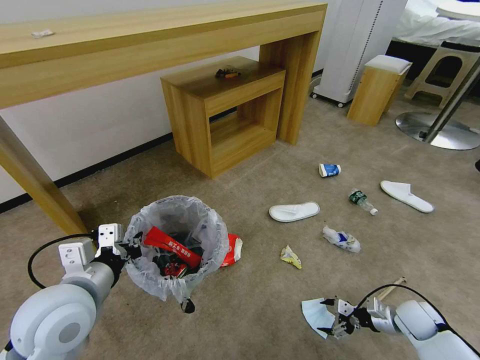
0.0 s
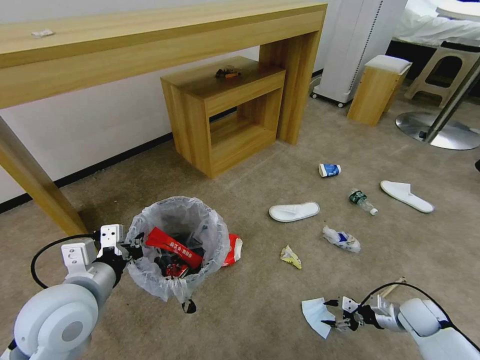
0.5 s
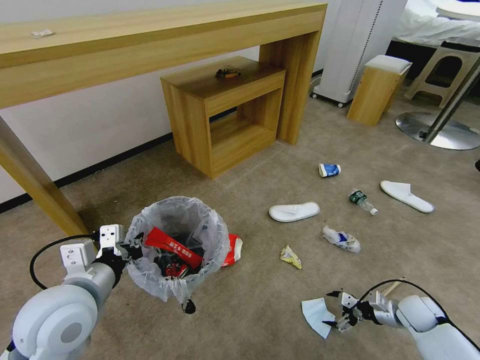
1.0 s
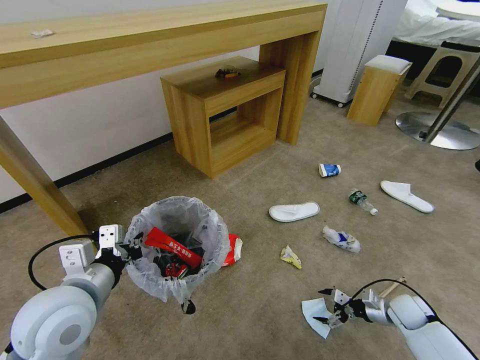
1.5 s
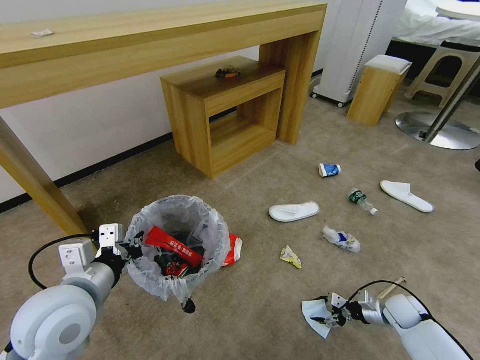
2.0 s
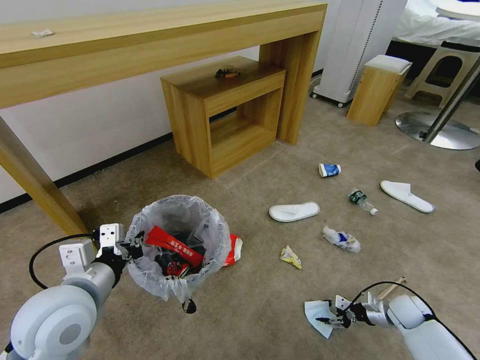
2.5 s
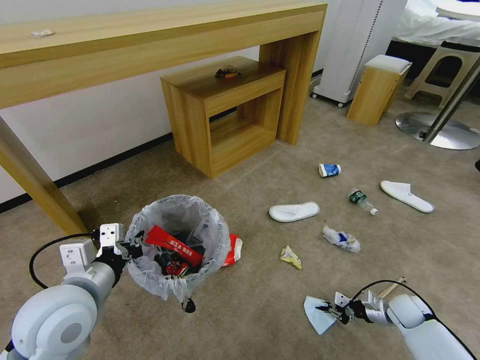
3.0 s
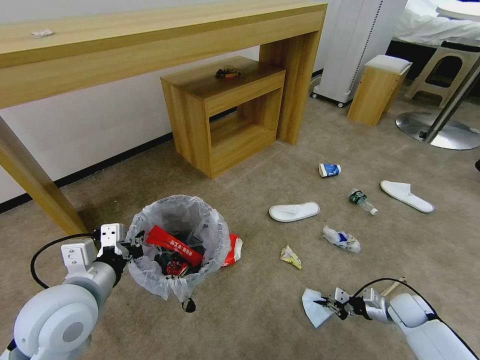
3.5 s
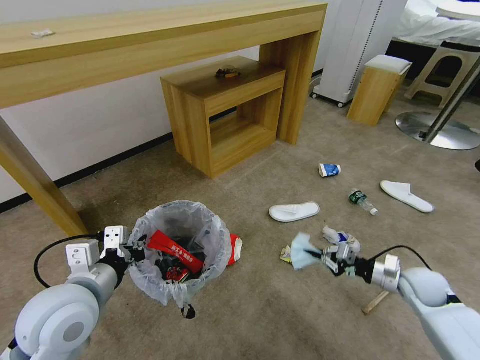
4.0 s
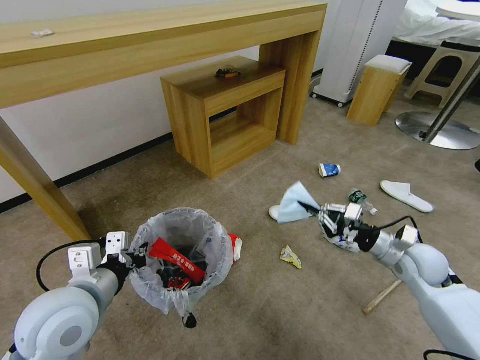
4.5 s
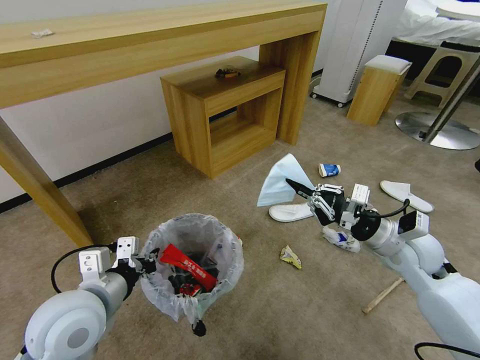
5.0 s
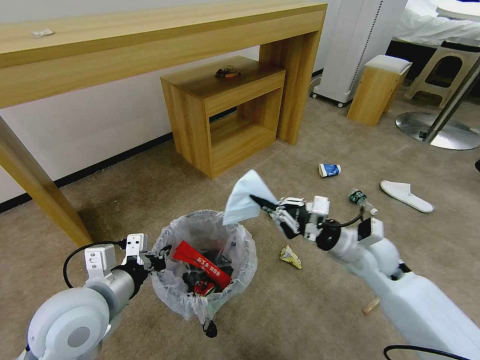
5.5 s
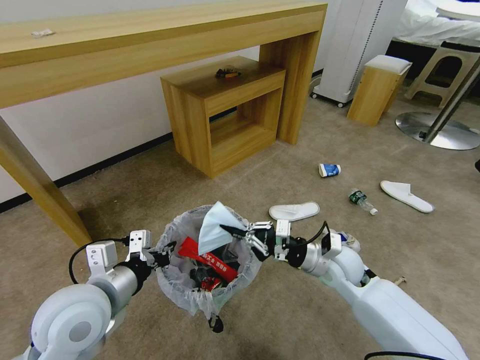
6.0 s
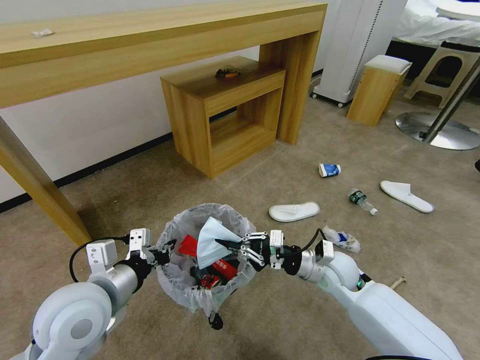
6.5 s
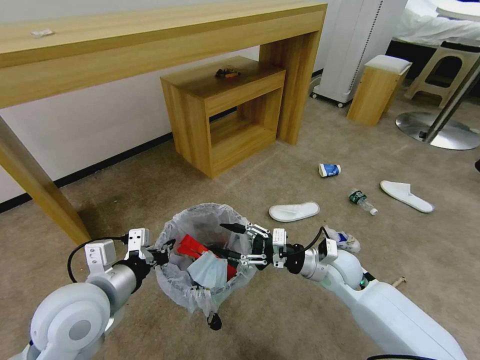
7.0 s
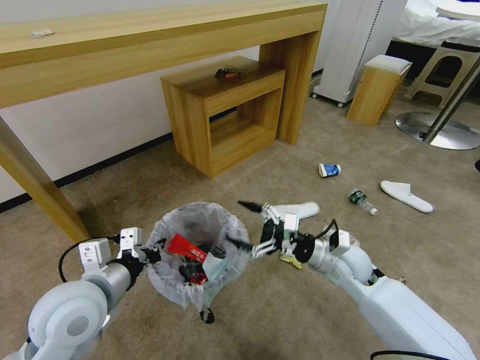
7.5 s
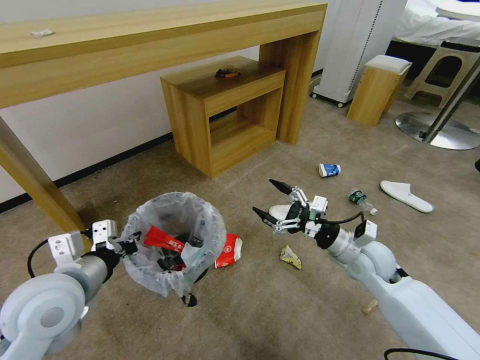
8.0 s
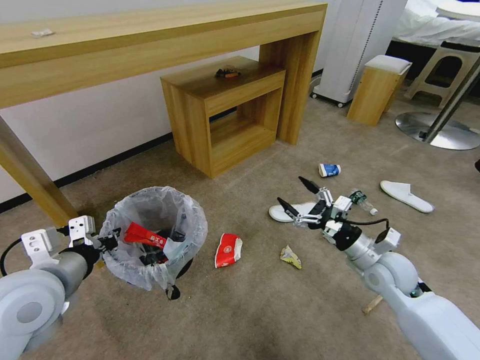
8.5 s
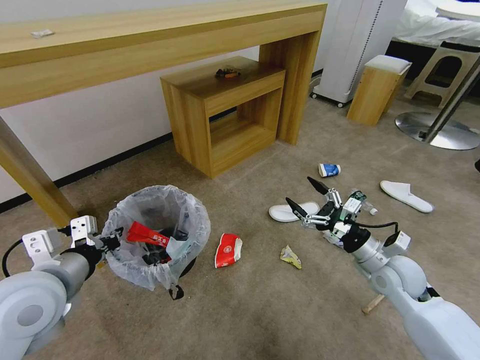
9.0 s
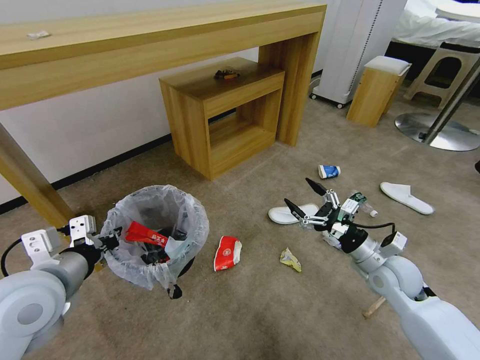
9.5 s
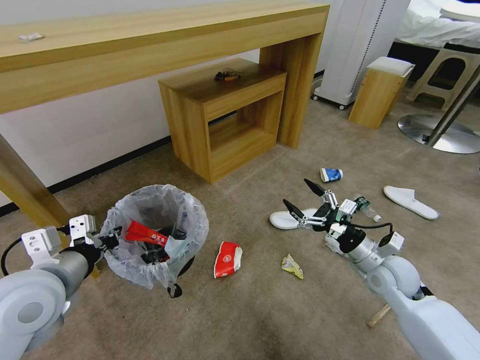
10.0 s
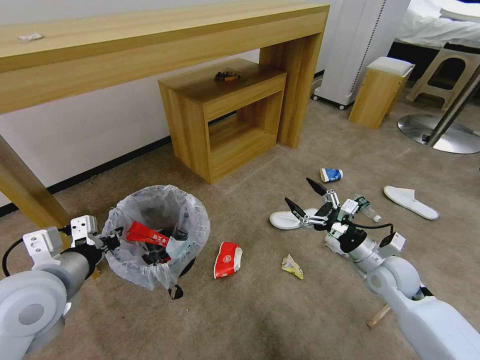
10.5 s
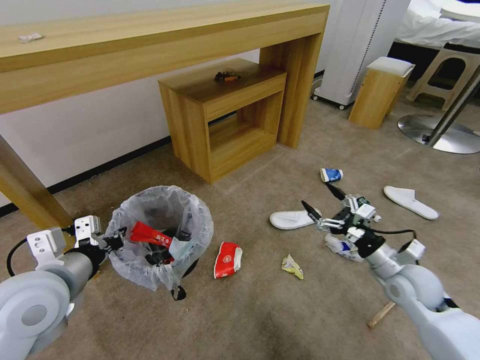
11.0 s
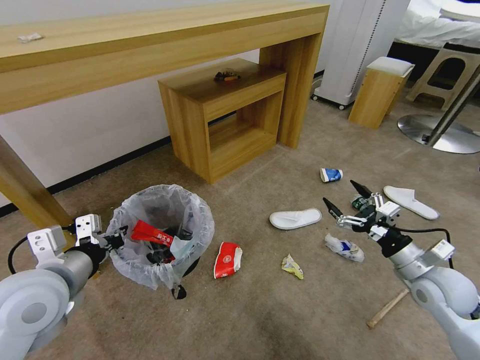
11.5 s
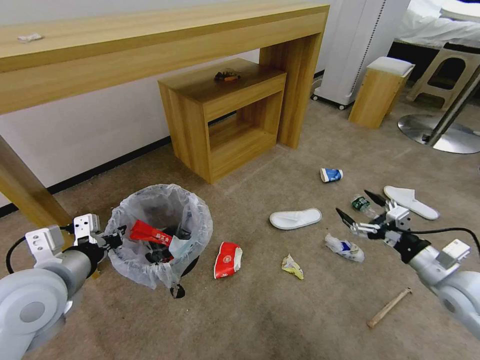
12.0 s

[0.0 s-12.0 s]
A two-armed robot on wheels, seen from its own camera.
Task of the whole recording: Pick up the trash bin and place the garbage on the floor into it.
0.0 to 2.0 s: The grippers make only small movements.
2.0 to 4.0 s: The right gripper is displaced upward by roughly 15 cm, and closes its fingers.
4.0 to 6.0 s: The right gripper heads to the left, covering about 20 cm.
6.0 to 8.0 s: The right gripper heads to the right, covering some 5 cm, and opens its fingers.
8.0 to 10.0 s: The right gripper changes place by some 5 cm.
10.0 to 12.0 s: The right gripper shifts roughly 10 cm to the right and backward.

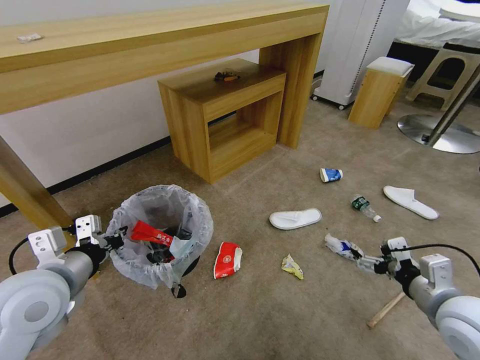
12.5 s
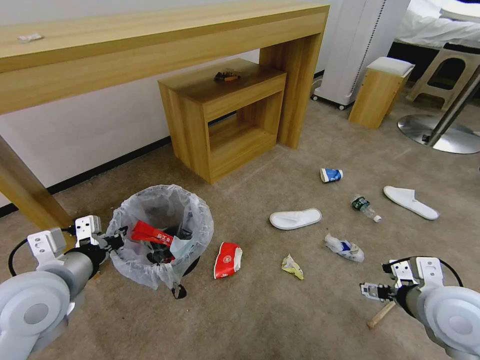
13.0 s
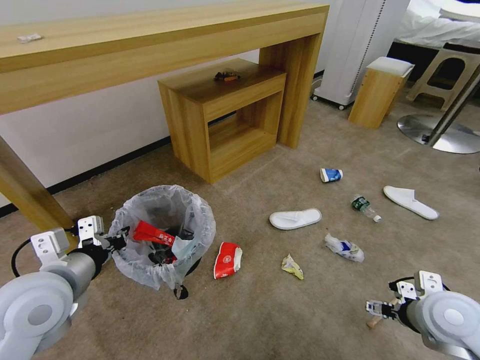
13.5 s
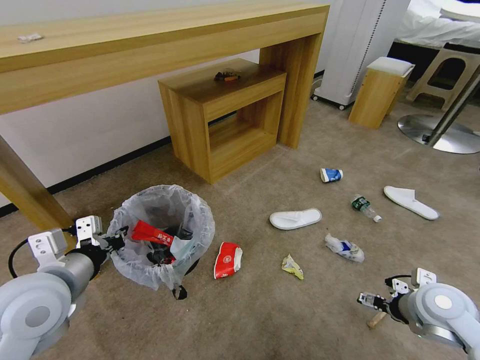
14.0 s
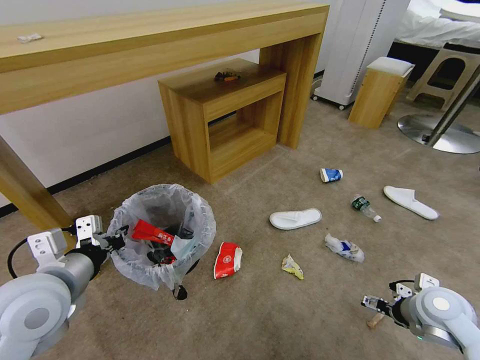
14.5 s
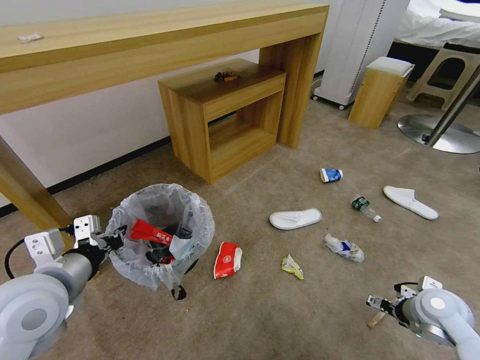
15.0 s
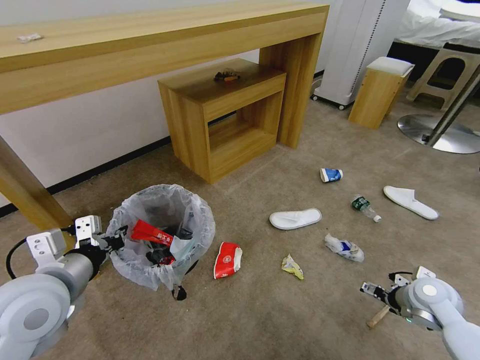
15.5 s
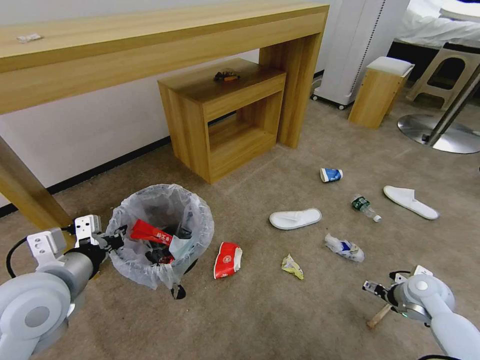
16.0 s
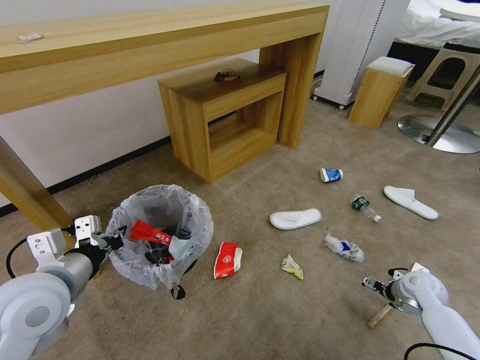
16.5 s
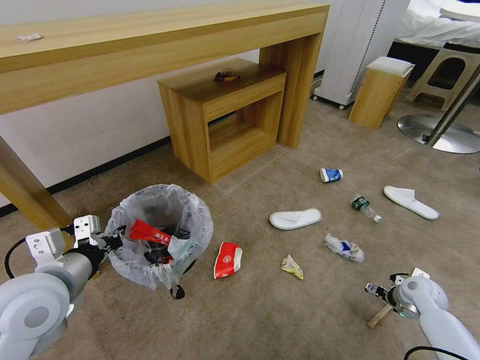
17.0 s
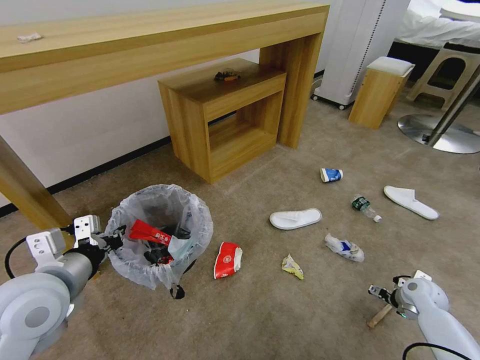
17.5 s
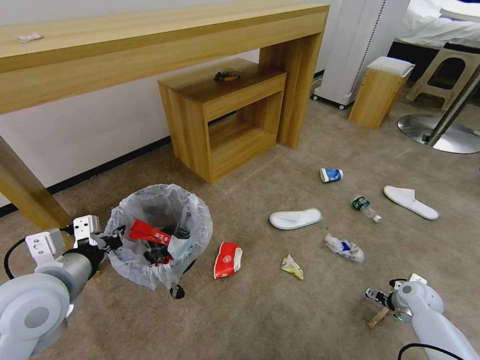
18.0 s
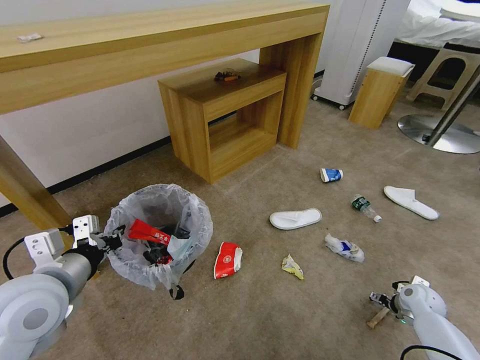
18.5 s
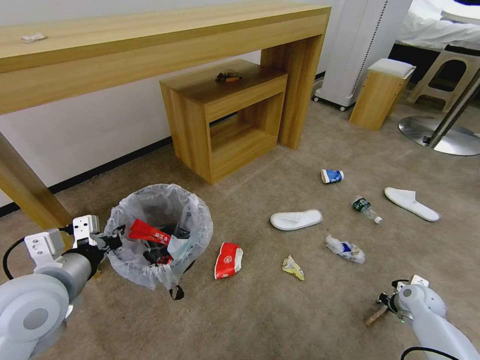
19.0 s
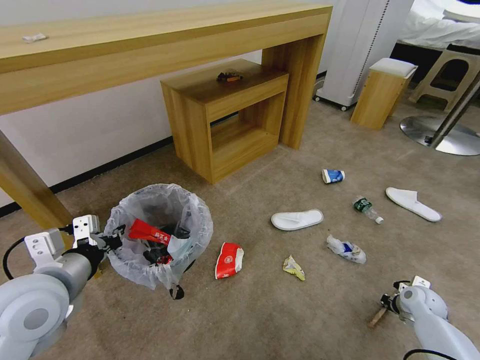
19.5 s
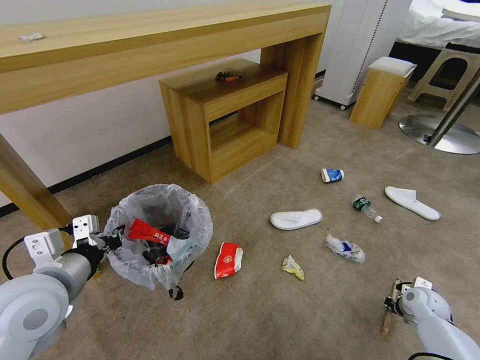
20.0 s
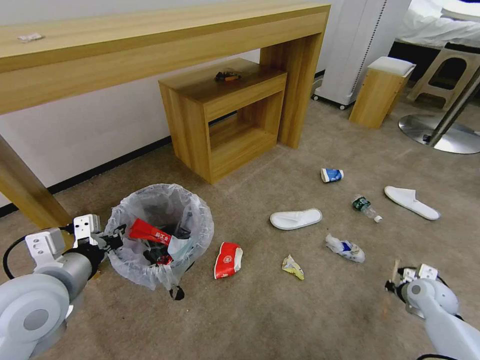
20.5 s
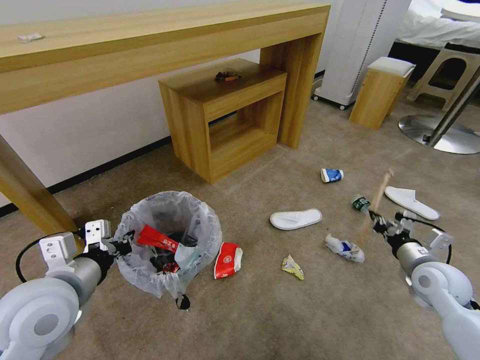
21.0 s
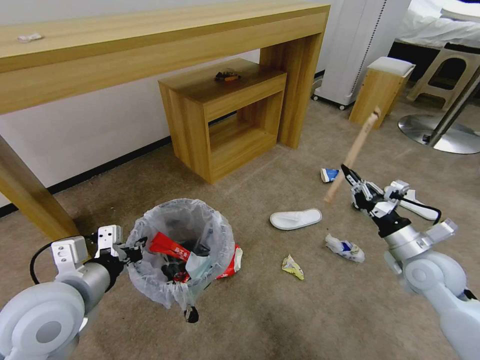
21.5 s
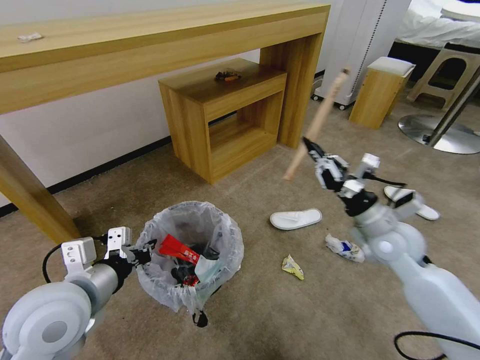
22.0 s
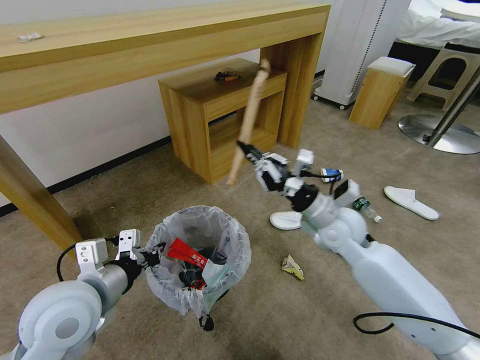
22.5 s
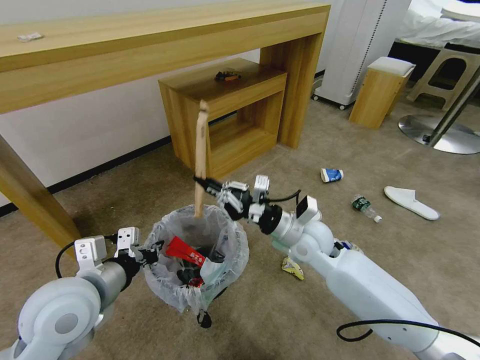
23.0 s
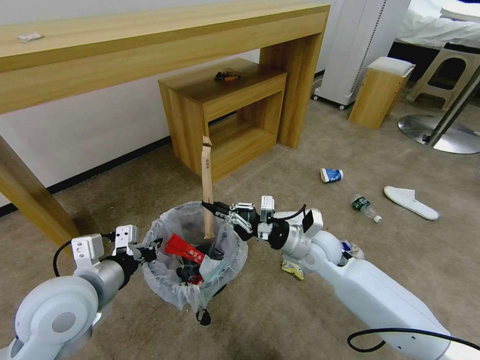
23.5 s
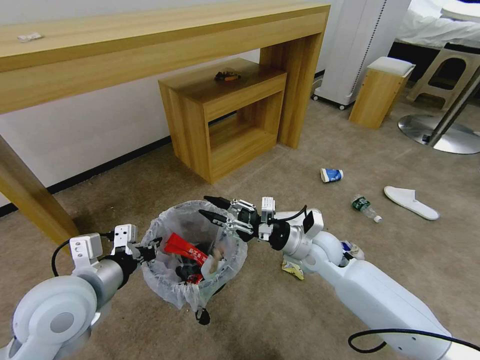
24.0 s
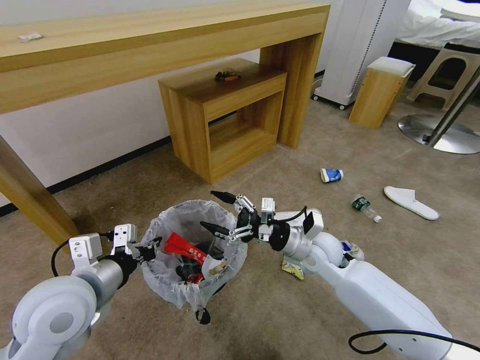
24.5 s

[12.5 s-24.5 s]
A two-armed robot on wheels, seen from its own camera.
Task of the whole recording: Pick up the trash bin and place the garbage on the floor into it.
12.5 to 14.5 s: The right gripper shifts some 10 cm downward and forward.
14.5 to 16.5 s: The right gripper shifts approximately 15 cm downward, forward and to the right.
16.5 to 18.5 s: The right gripper moves downward, roughly 5 cm.
18.5 to 20.5 s: The right gripper closes its fingers.
20.5 to 22.5 s: The right gripper heads to the left and upward, covering roughly 35 cm.
22.5 to 24.5 s: The right gripper shifts approximately 5 cm downward, and opens up.

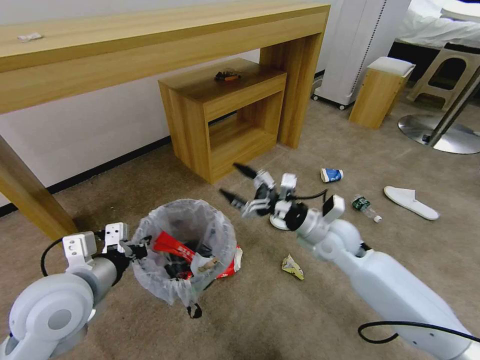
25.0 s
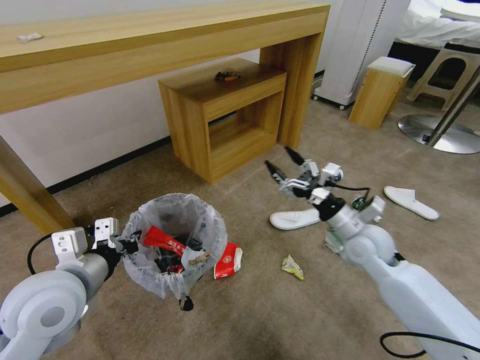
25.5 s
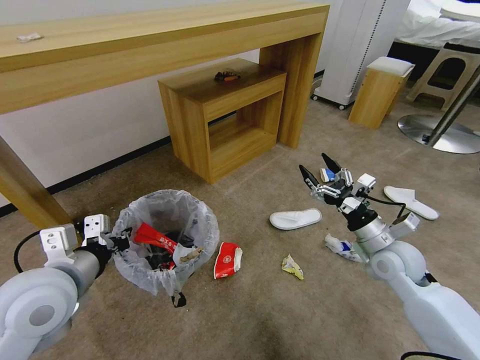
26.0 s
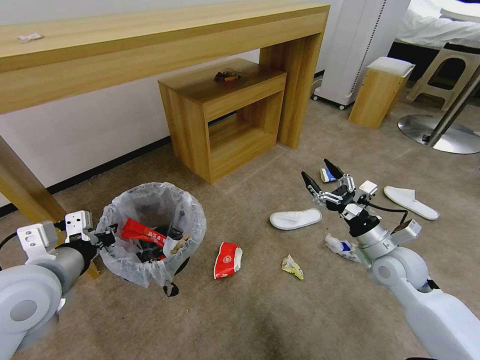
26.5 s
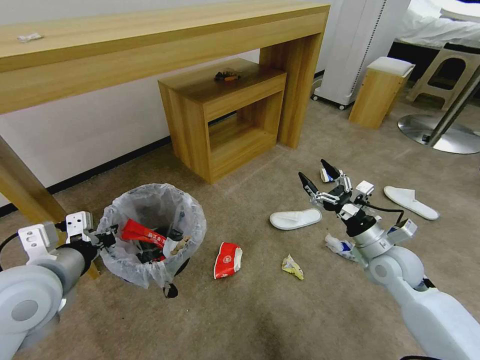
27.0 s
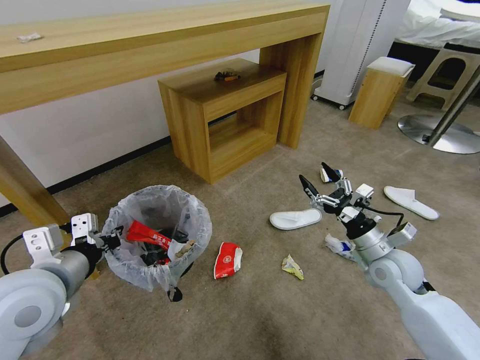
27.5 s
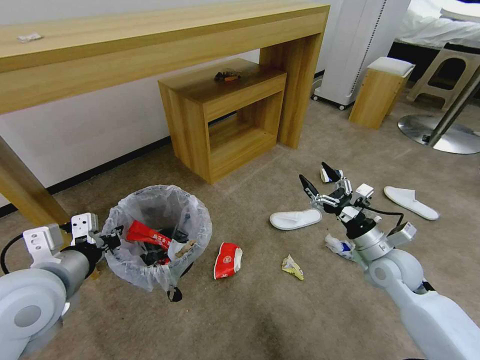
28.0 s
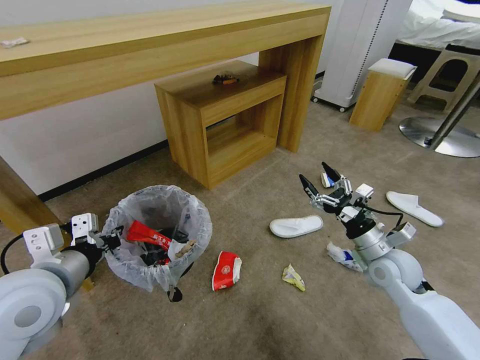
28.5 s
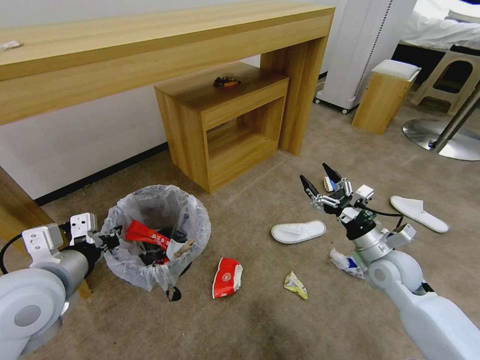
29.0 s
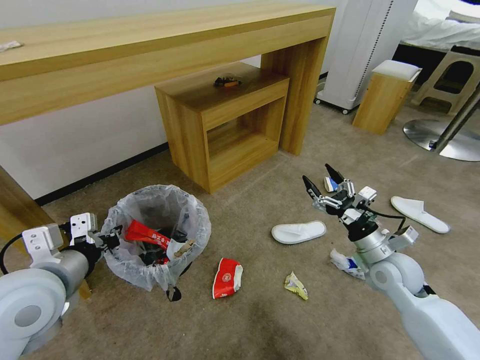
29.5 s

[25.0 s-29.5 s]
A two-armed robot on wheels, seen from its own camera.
Task of the whole recording: Pick up the trash bin and place the garbage on the floor into it.
25.0 to 27.0 s: The right gripper moves to the right and backward, roughly 15 cm.
